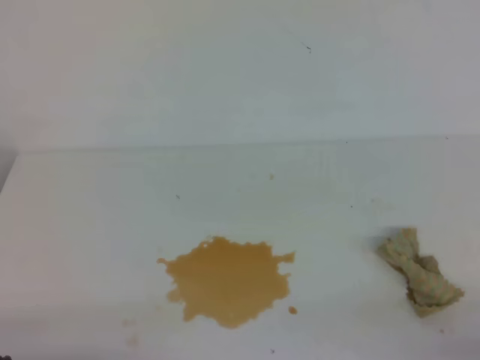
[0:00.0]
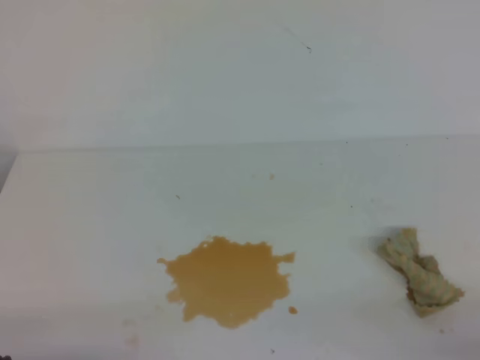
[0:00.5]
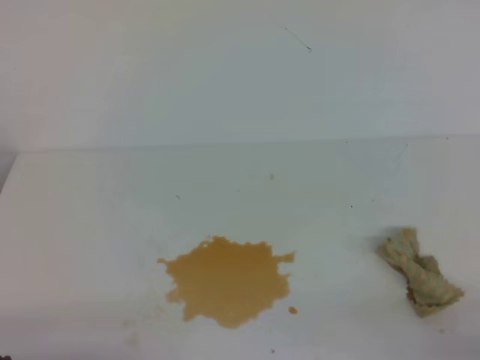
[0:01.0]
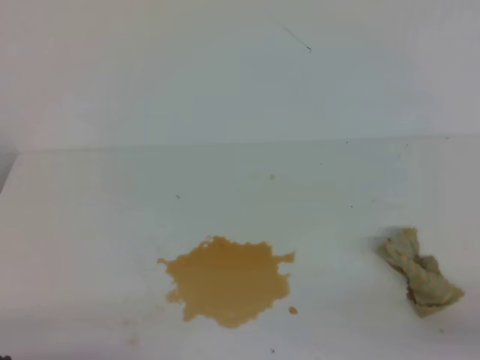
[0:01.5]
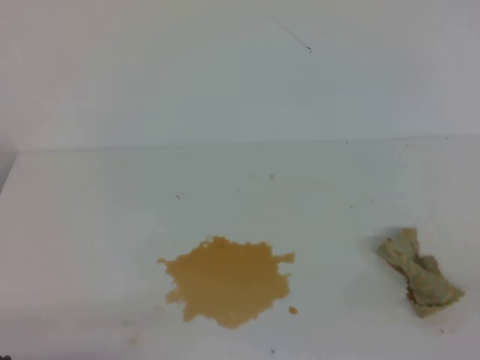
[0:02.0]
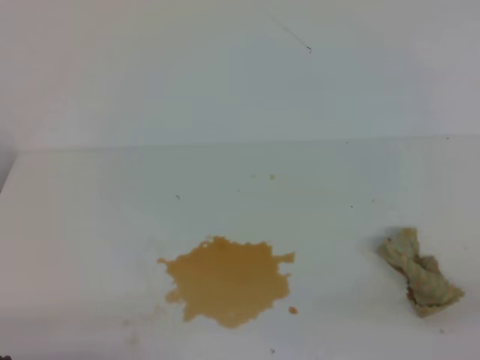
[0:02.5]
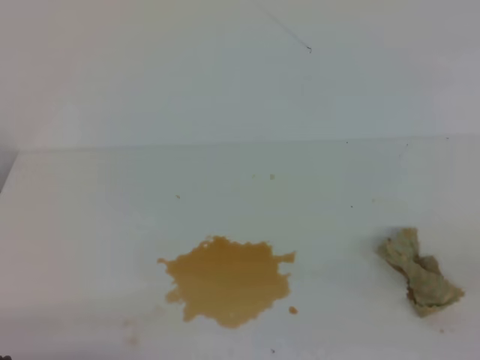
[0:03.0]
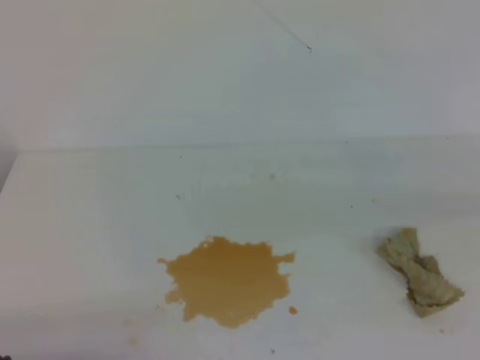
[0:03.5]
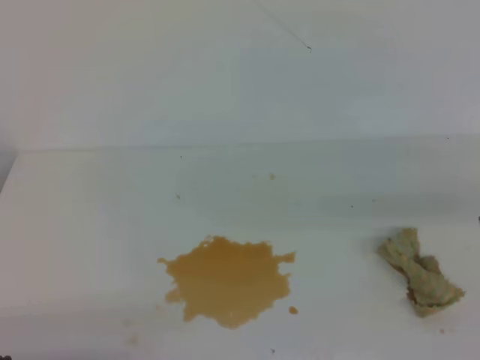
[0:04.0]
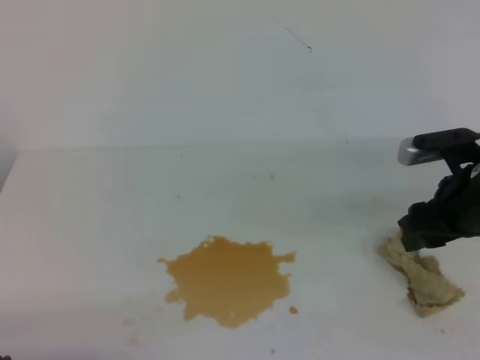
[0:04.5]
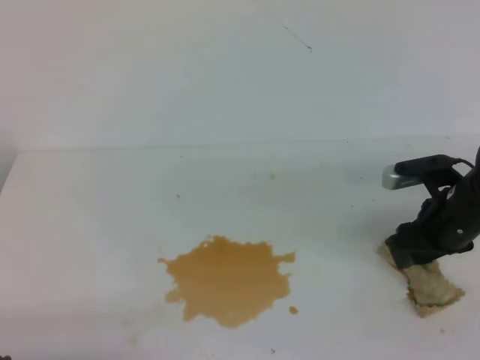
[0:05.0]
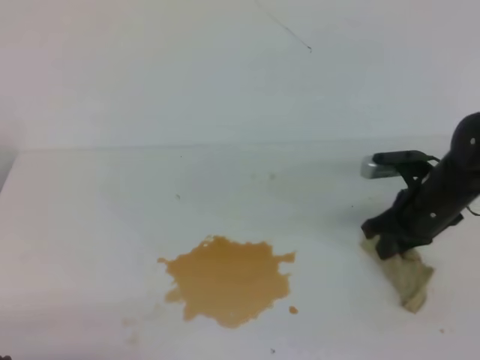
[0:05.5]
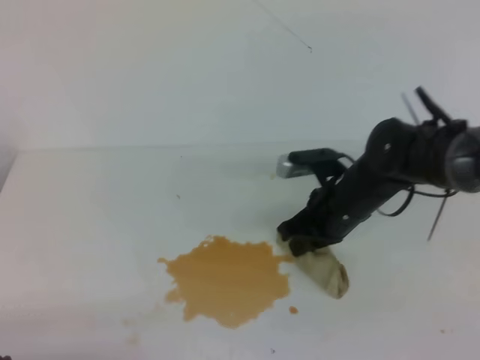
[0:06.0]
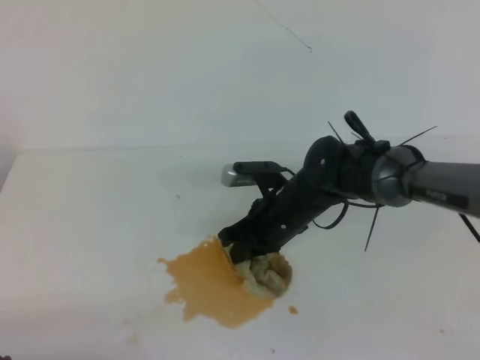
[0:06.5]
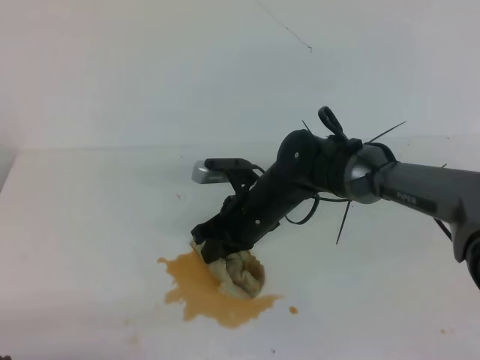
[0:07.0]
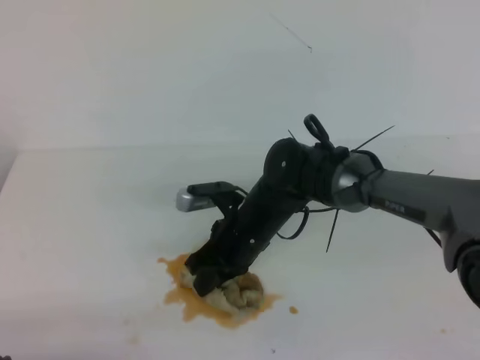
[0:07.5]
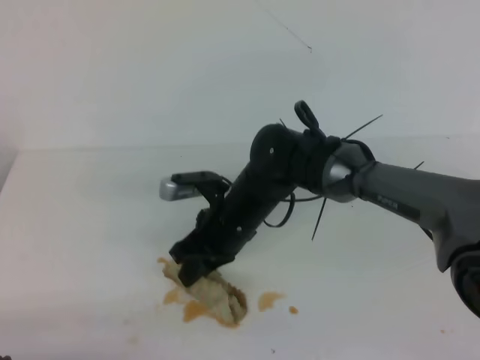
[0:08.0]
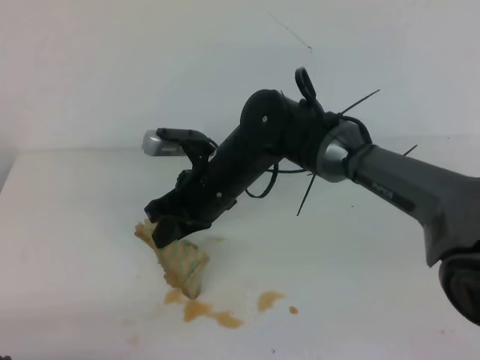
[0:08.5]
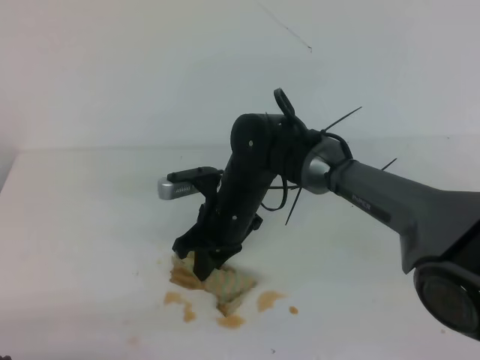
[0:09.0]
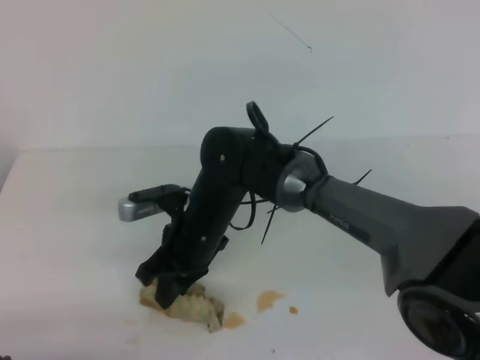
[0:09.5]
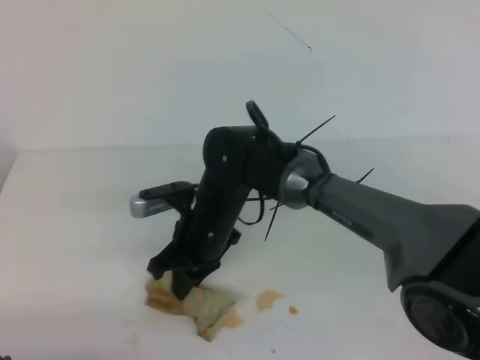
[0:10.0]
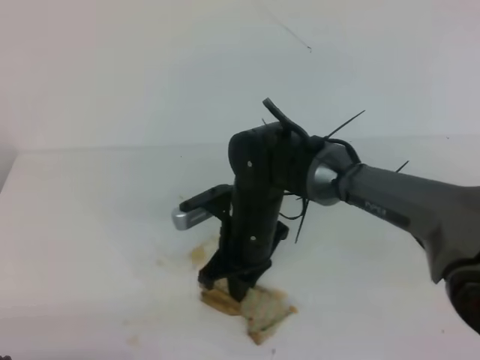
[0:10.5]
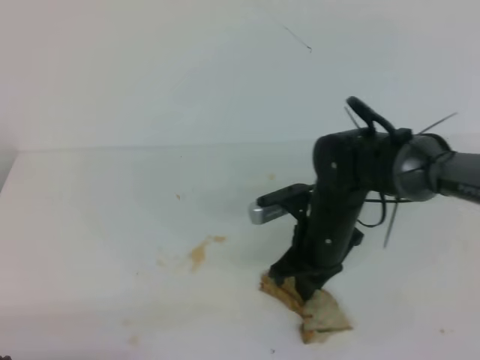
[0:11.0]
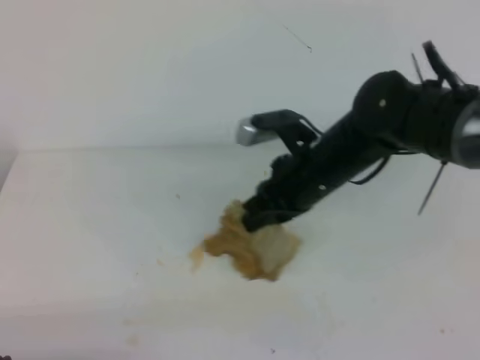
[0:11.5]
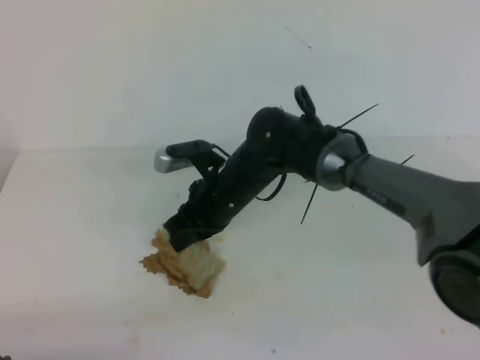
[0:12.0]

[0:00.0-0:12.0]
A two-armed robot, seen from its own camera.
0:04.0 to 0:06.0: The right gripper moves to the left, downward and forward, roughly 25 cm, and opens, then closes again.
0:06.0 to 0:08.0: The right gripper travels to the left by about 15 cm.
0:08.0 to 0:10.0: The grippers make only small movements.
0:10.0 to 0:12.0: The right gripper reaches some 15 cm to the right, then returns.

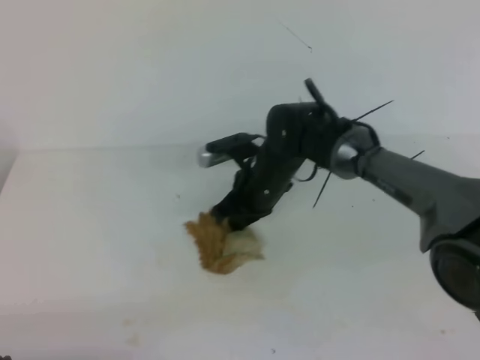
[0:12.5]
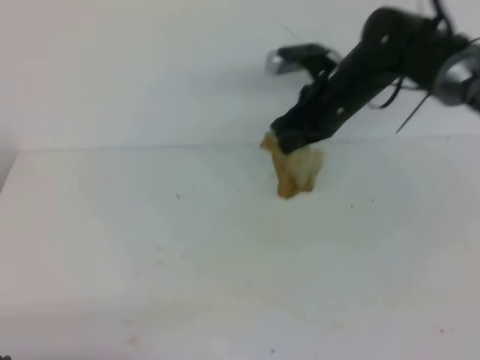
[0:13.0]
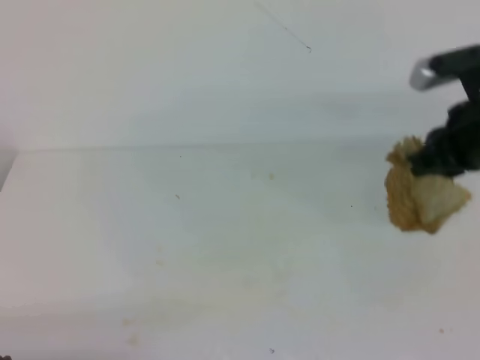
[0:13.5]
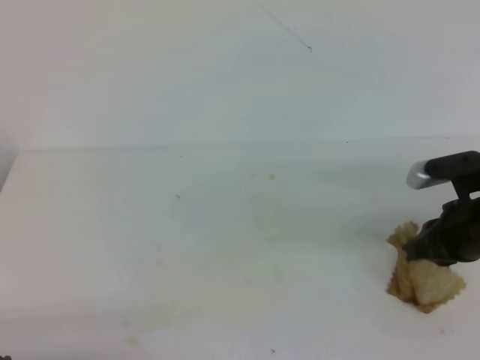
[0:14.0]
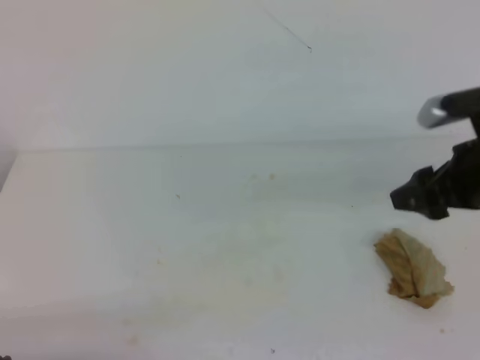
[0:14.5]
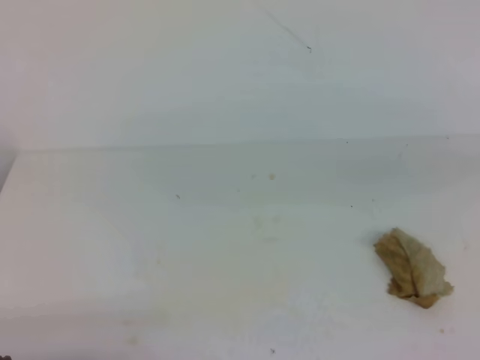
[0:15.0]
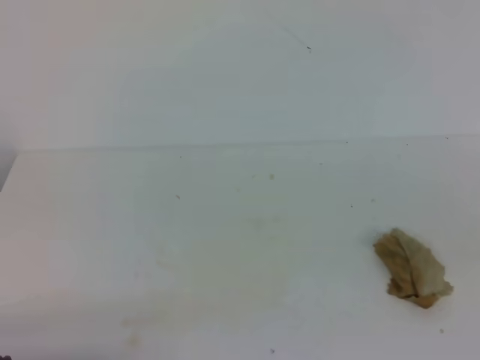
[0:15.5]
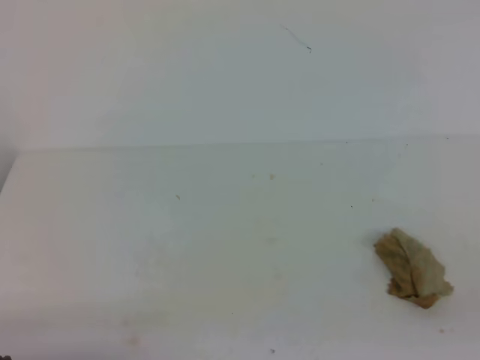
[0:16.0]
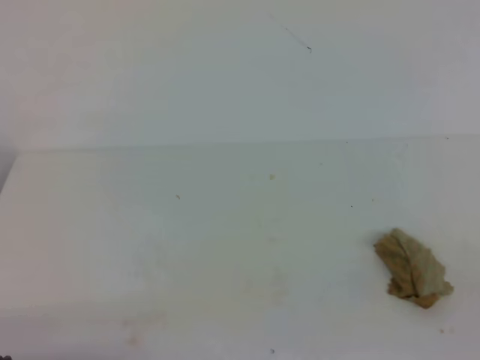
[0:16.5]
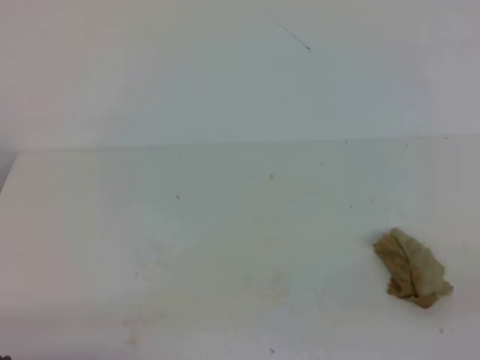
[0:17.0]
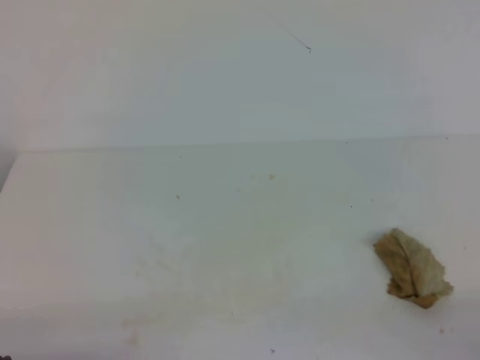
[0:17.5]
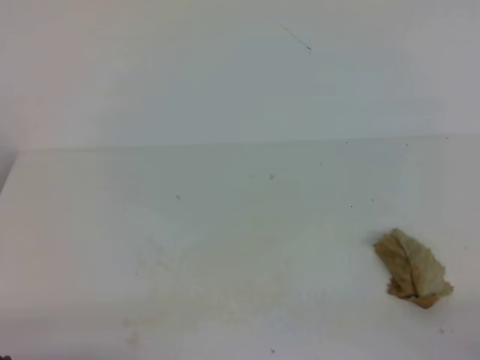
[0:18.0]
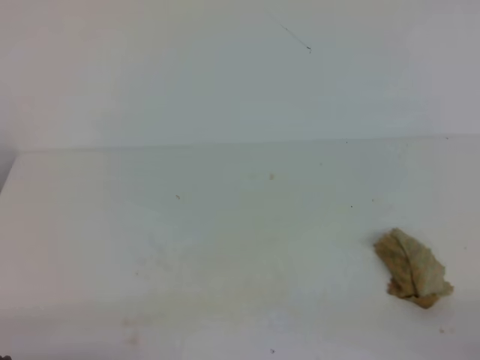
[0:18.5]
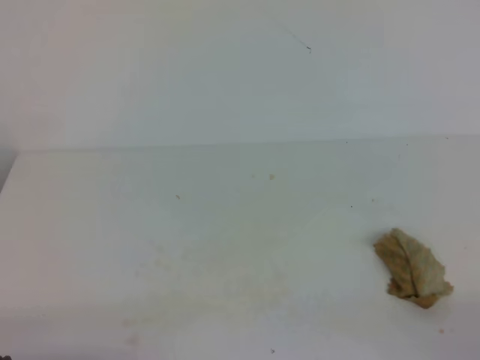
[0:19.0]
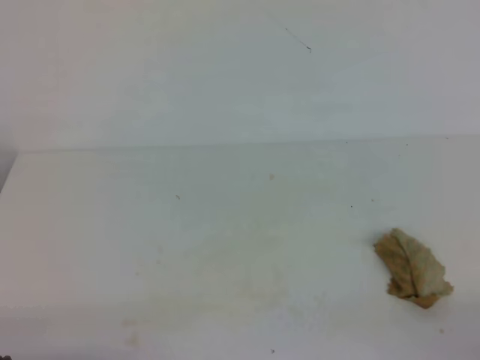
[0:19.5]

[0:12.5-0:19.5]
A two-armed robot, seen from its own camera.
0:12.5 to 0:14.5: The right gripper goes about 30 cm to the right, backward and upward, and opens up.
0:14.5 to 0:16.0: The right gripper moves backward, roughly 25 cm, and closes.
0:17.5 to 0:19.5: The two grippers keep their place.
